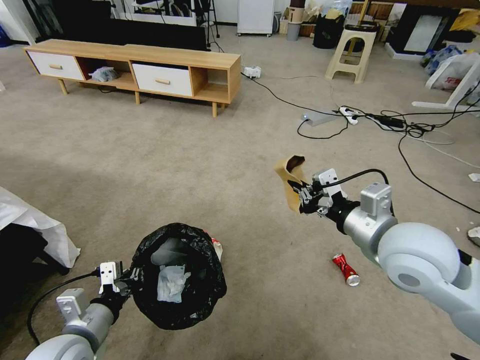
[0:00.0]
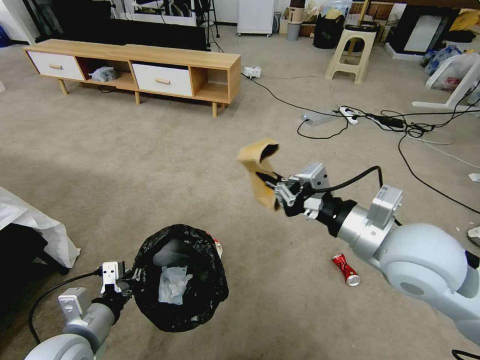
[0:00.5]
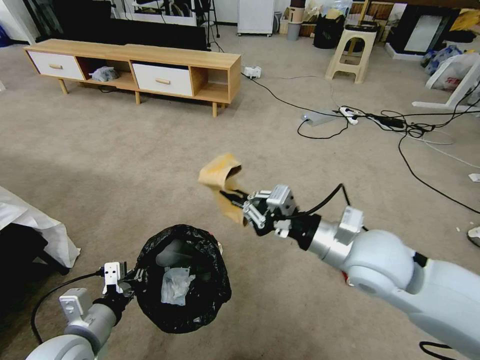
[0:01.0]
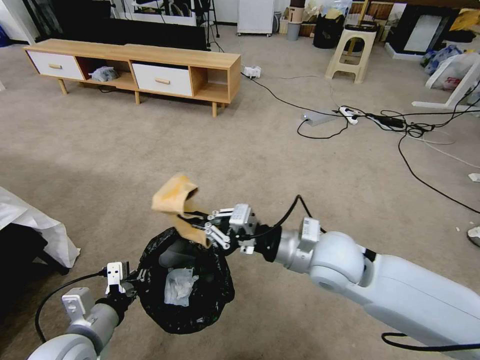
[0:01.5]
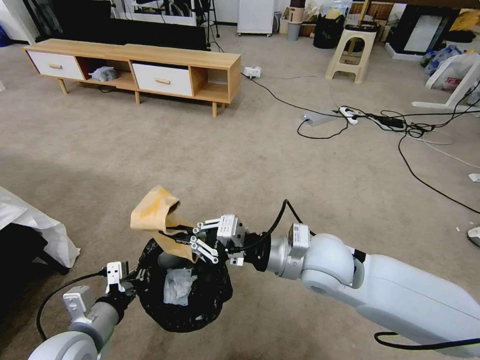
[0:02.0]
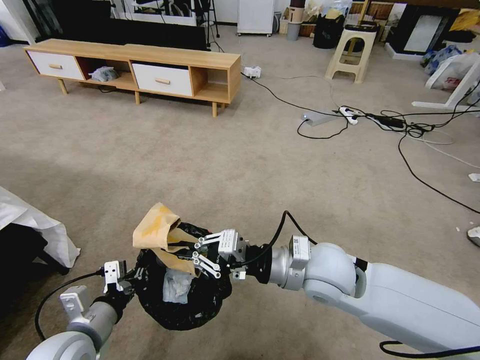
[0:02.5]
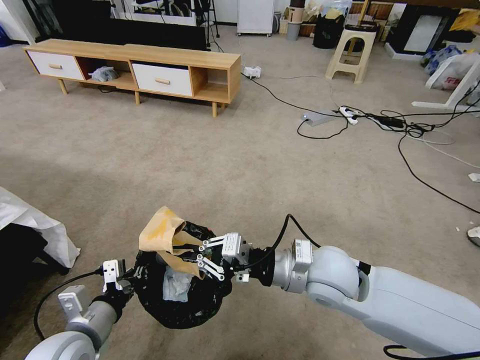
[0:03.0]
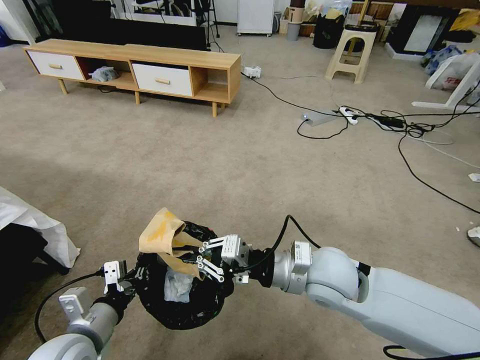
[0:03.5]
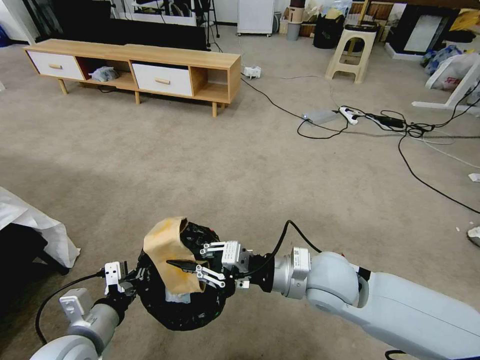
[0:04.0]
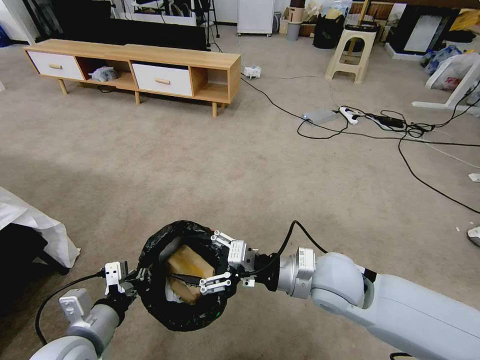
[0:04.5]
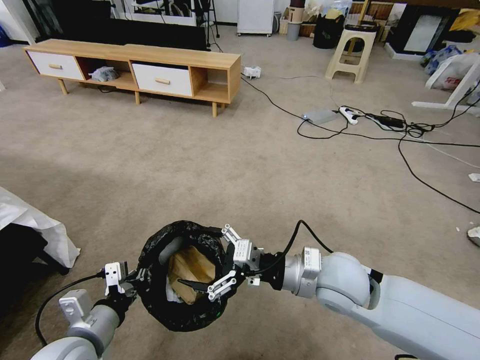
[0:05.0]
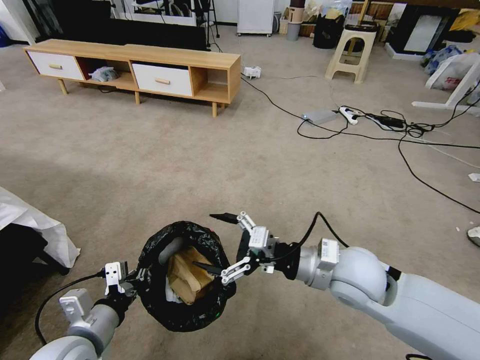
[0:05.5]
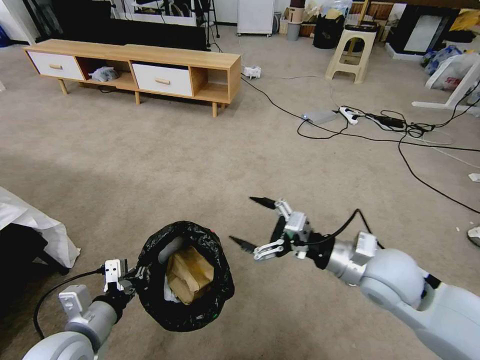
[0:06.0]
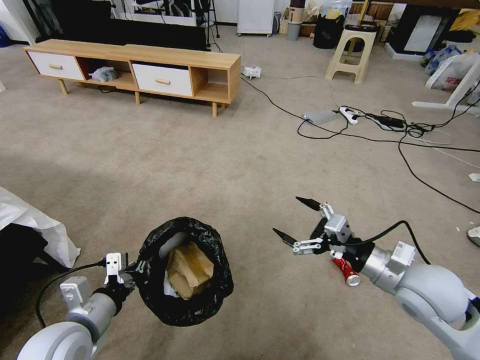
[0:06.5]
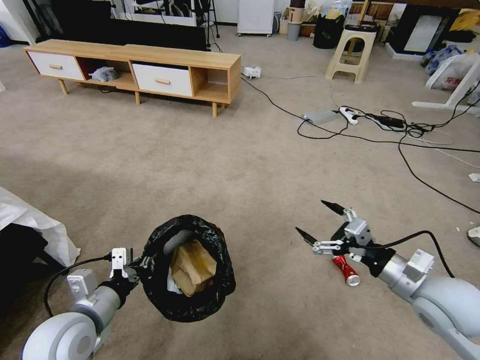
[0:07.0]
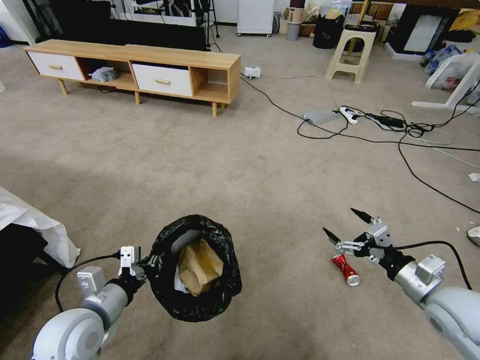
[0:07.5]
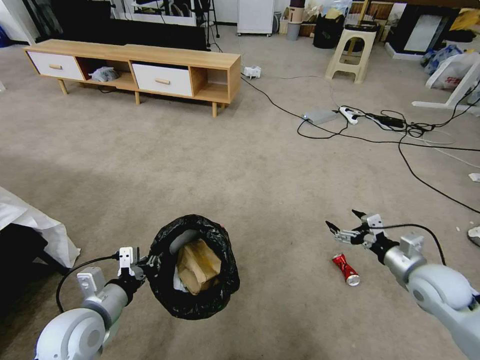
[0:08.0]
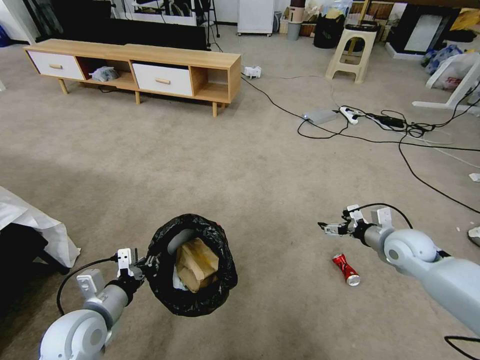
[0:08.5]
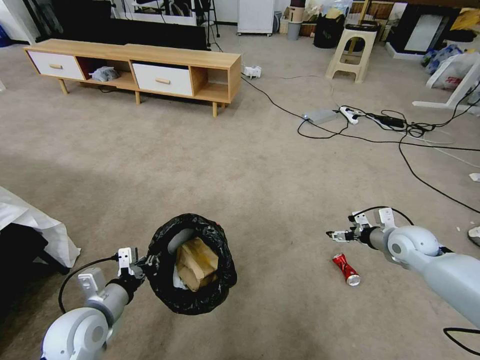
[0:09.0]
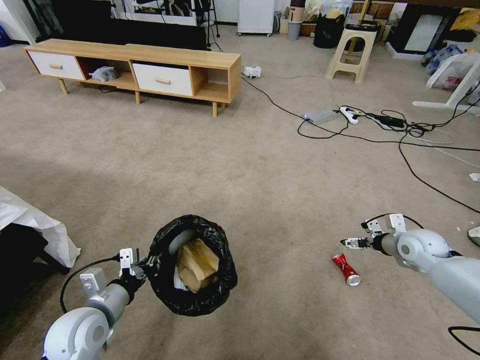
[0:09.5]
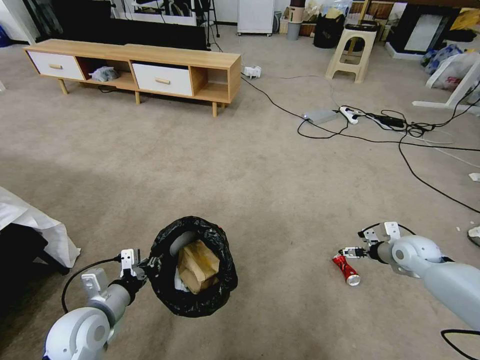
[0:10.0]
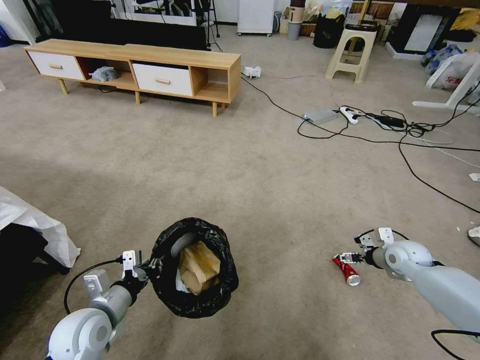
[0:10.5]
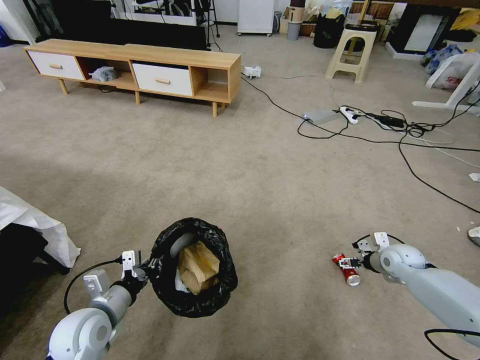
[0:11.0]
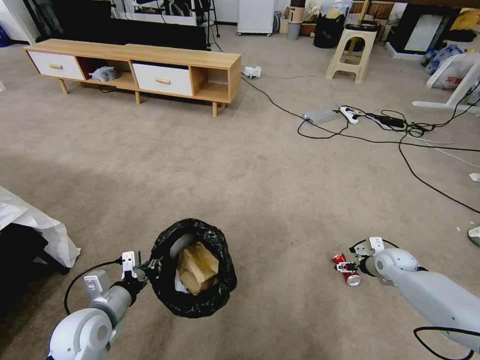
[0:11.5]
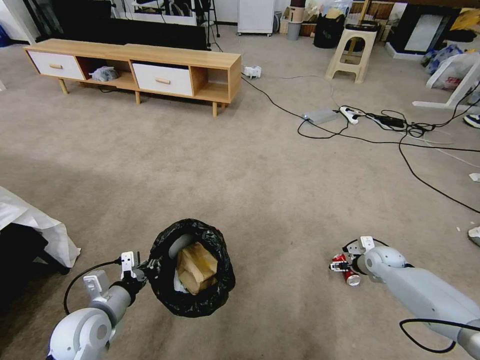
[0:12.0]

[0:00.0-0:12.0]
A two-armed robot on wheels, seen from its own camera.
Task of the whole recording: Pick up the trash bin, then pick up the garbage from the floor and place it into the trash bin.
0.0 to 2.0 s: The right gripper moves to the left and downward, some 15 cm.
2.0 to 4.0 s: The grippers make only small movements.
4.0 to 6.0 s: The right gripper shifts approximately 10 cm to the right, and opens up.
6.0 to 8.0 s: The right gripper goes roughly 20 cm to the right and downward.
8.0 to 10.0 s: The right gripper heads forward, covering approximately 10 cm.
10.0 to 12.0 s: The right gripper shifts about 10 cm downward.

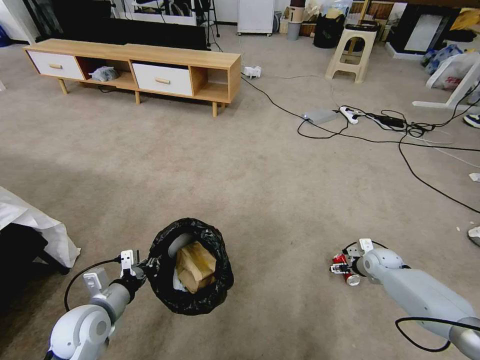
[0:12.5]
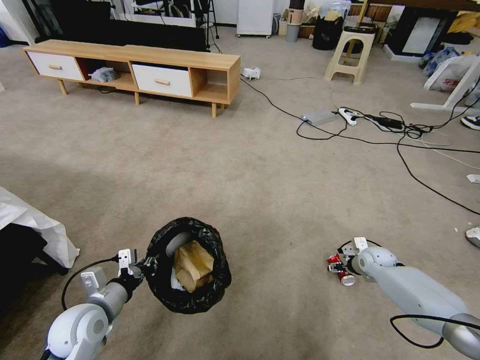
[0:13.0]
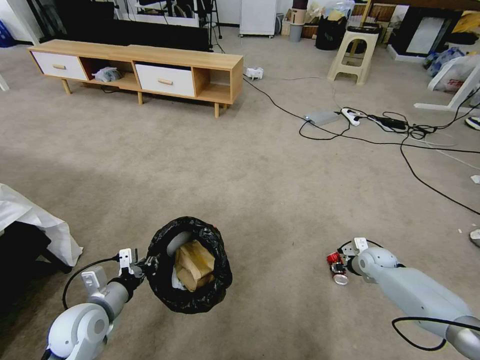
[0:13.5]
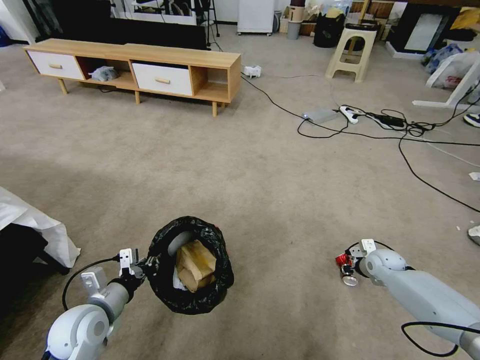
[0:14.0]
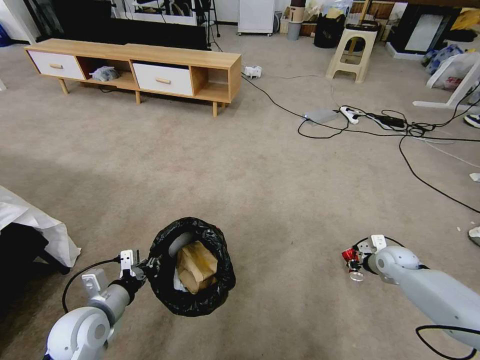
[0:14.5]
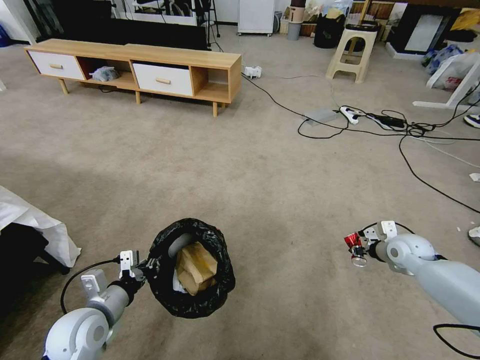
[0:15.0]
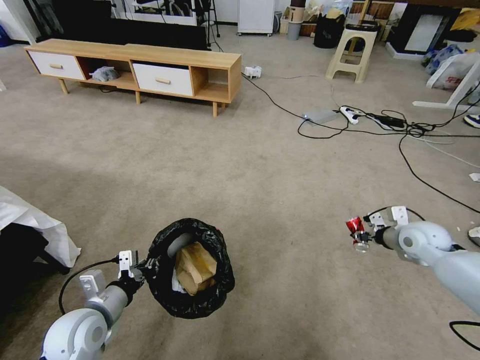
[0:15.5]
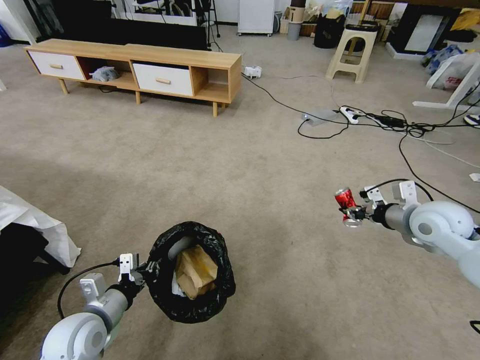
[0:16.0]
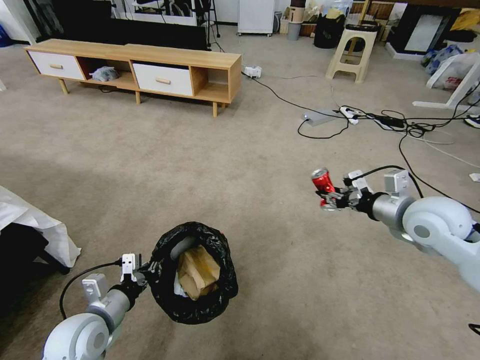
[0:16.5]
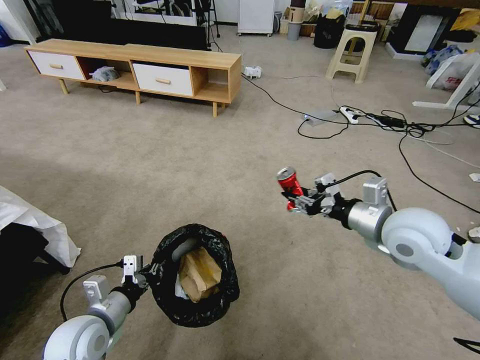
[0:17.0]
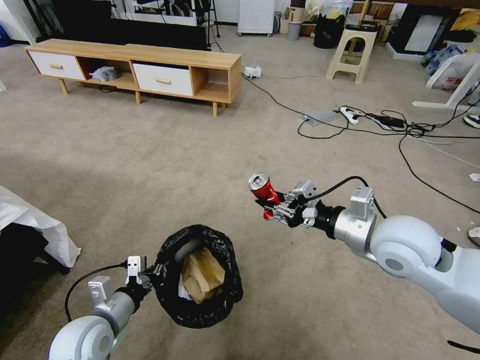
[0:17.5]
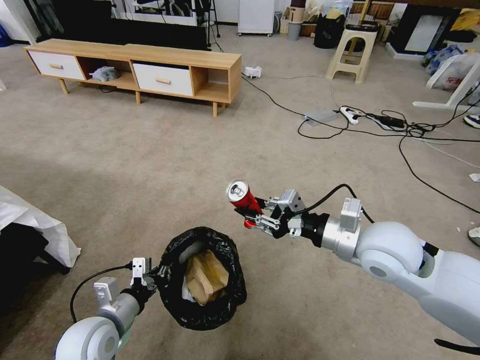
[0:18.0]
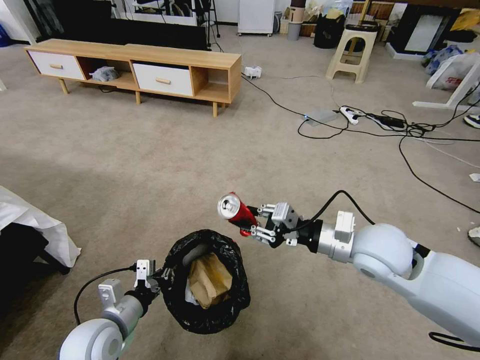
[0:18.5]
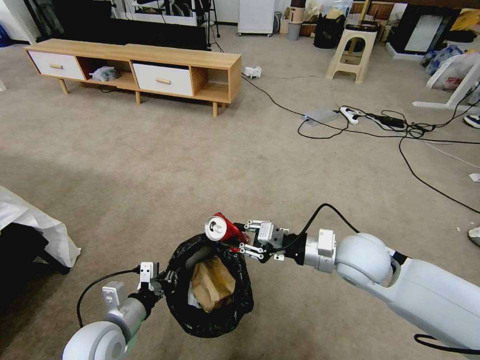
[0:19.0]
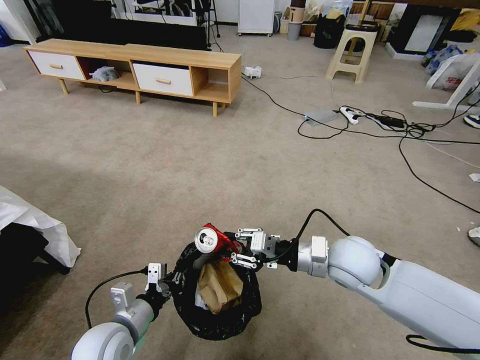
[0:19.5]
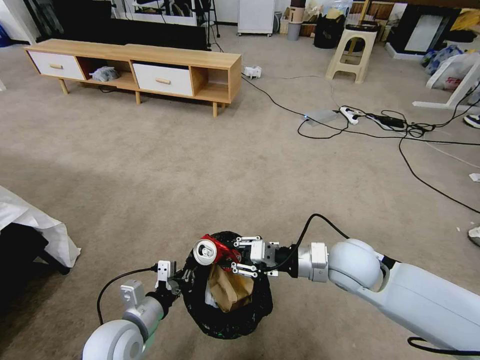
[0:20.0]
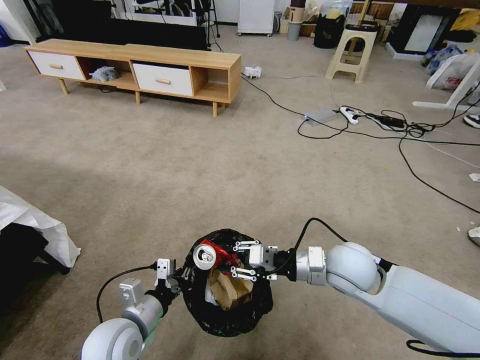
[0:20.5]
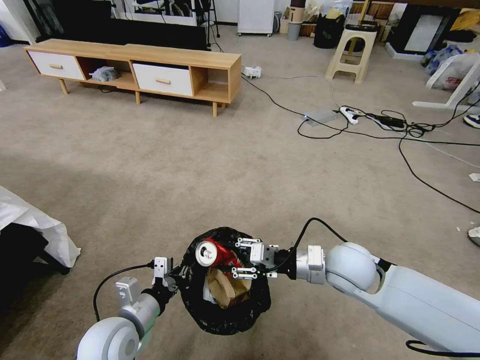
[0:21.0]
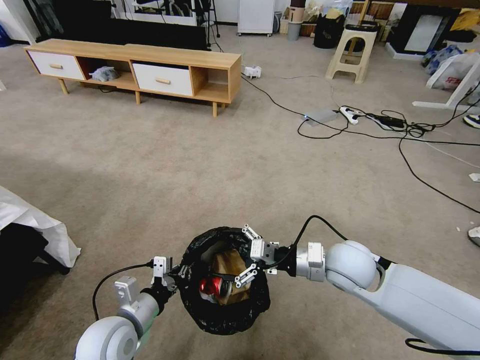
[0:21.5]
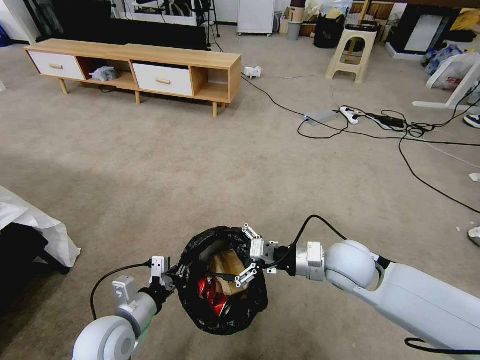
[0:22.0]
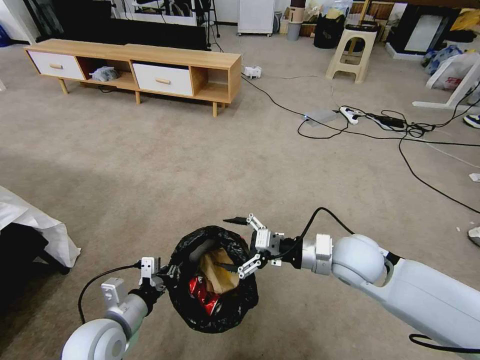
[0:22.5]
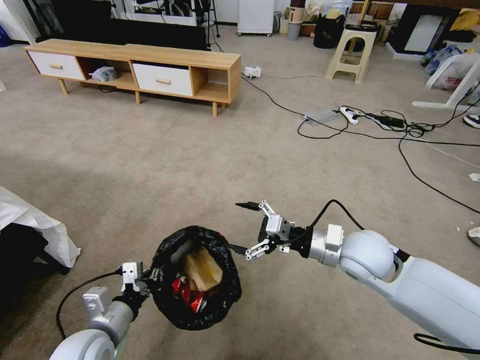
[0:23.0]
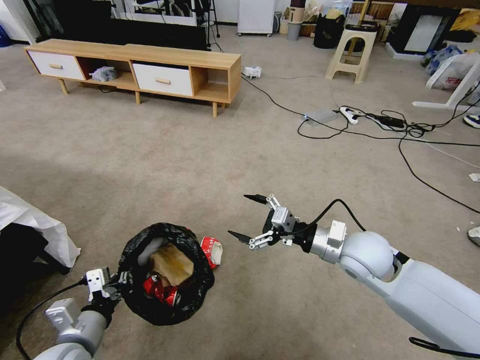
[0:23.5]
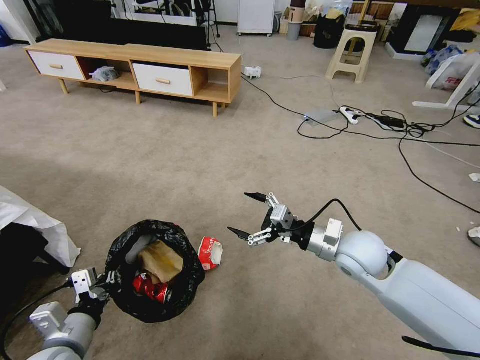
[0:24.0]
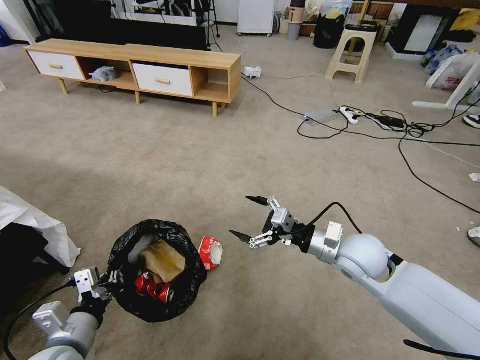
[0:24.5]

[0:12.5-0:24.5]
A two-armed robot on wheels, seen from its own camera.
Task of the whole recording: Pick up the trash bin, then pick up the garbage from the floor and place it into the trash bin.
12.5 to 14.5 s: The right gripper closes.
14.5 to 16.5 s: The right gripper heads upward, covering about 25 cm.
16.5 to 18.5 s: The right gripper travels to the left by roughly 10 cm.
18.5 to 20.5 s: The right gripper goes roughly 5 cm downward.
20.5 to 22.5 s: The right gripper opens its fingers.
22.5 to 24.5 s: The left gripper is displaced to the left by approximately 5 cm.

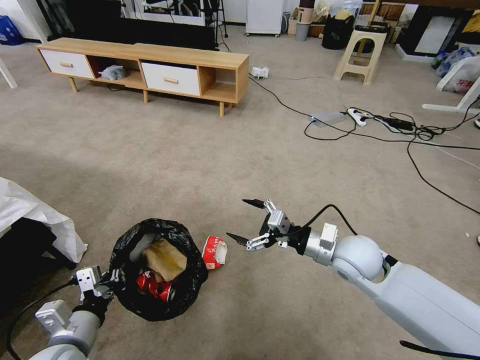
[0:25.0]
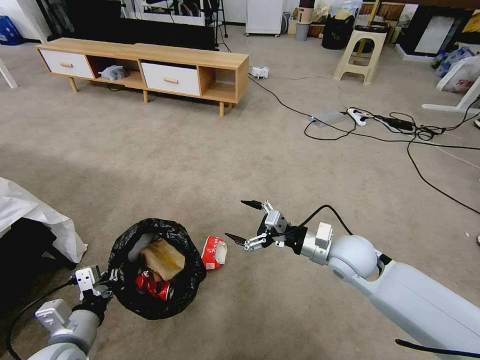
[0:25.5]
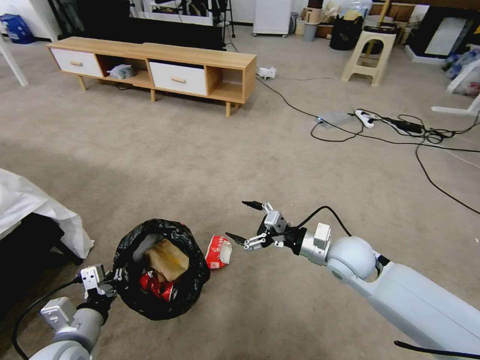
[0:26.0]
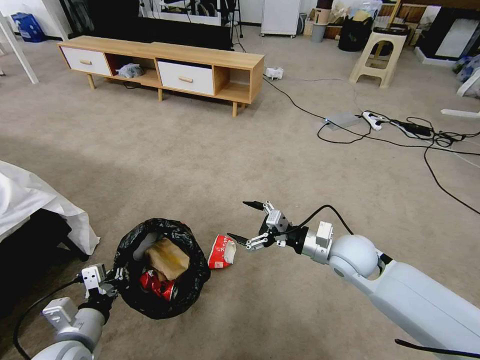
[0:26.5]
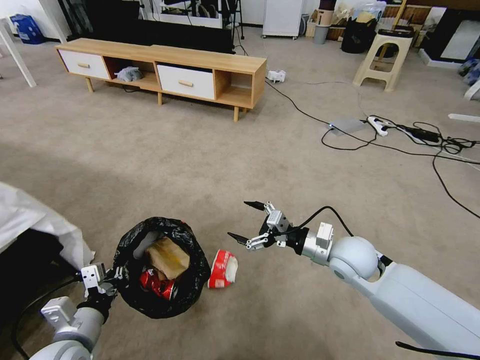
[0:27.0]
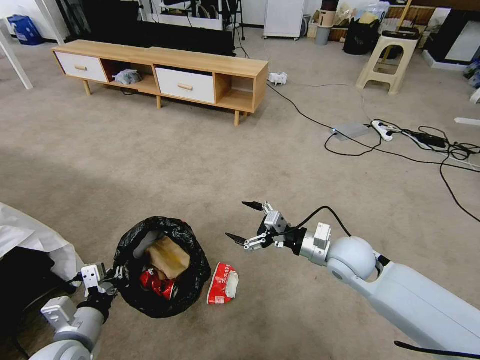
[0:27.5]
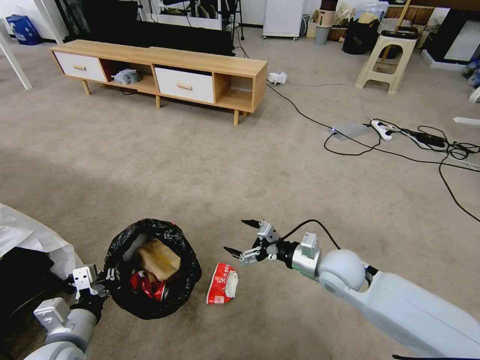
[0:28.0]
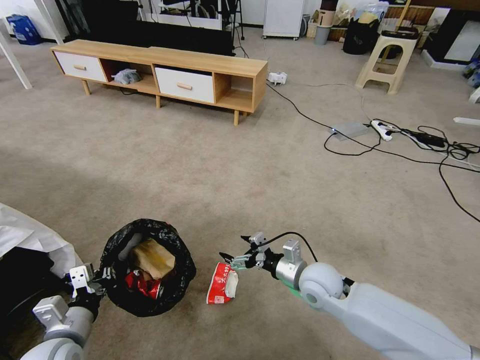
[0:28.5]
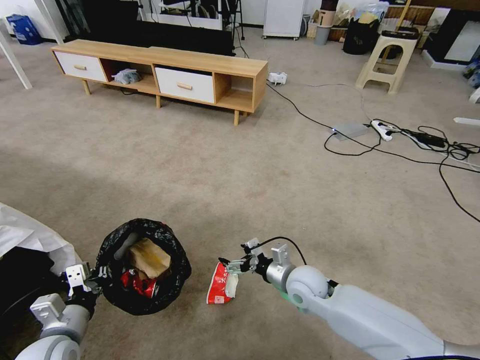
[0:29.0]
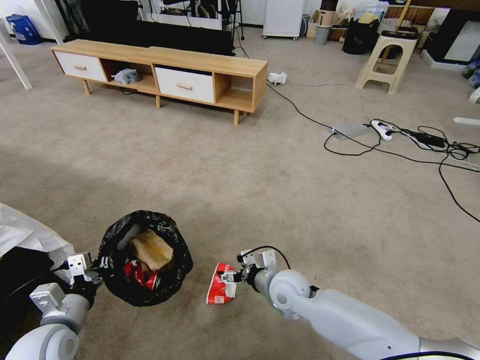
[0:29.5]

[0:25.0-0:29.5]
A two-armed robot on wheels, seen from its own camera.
Task of the whole recording: Pick up the trash bin, then pick up the garbage from the floor and place it into the trash bin.
27.0 to 29.5 s: The right gripper is displaced to the left and downward by about 15 cm.
